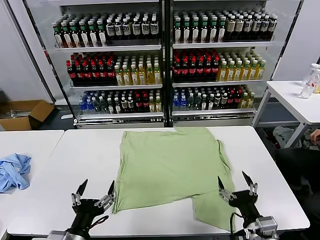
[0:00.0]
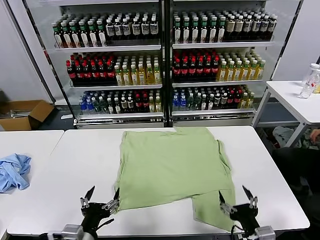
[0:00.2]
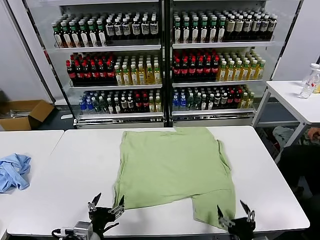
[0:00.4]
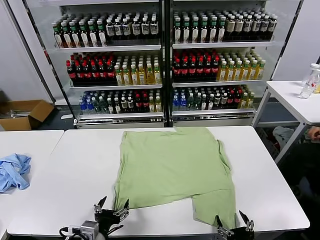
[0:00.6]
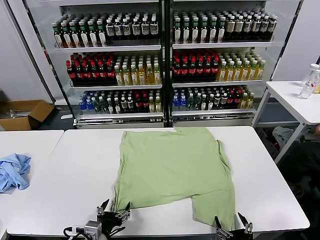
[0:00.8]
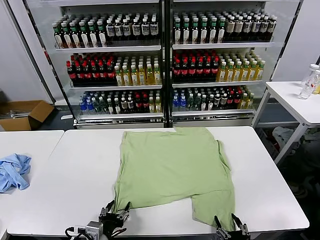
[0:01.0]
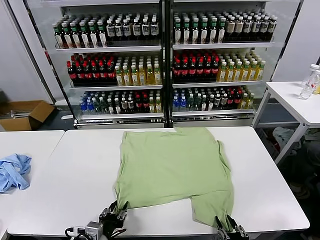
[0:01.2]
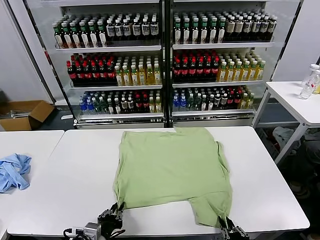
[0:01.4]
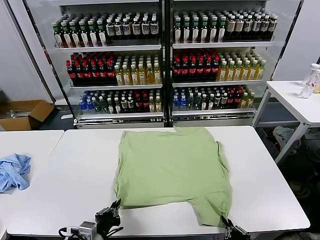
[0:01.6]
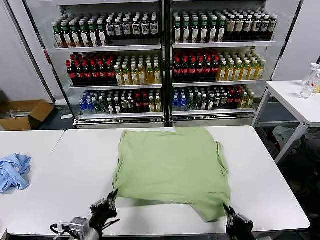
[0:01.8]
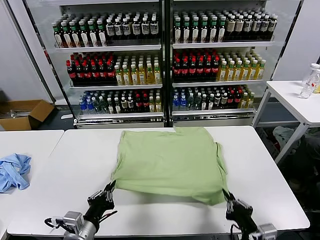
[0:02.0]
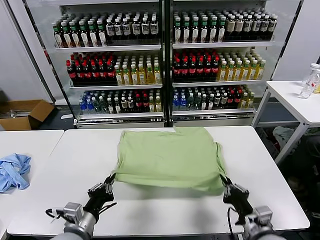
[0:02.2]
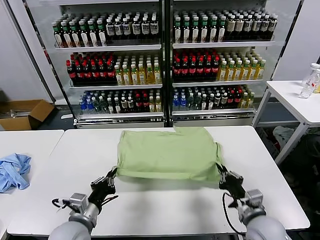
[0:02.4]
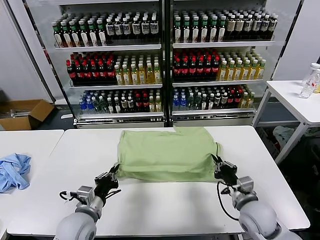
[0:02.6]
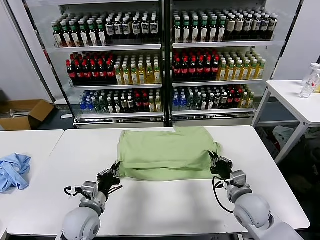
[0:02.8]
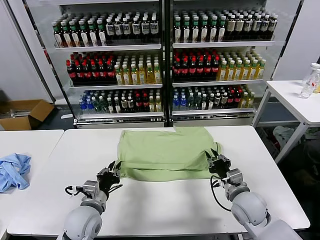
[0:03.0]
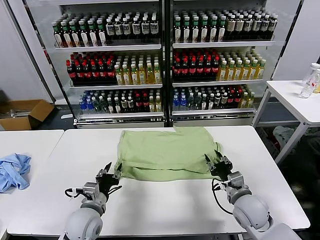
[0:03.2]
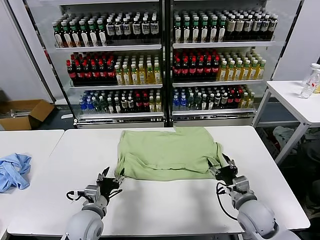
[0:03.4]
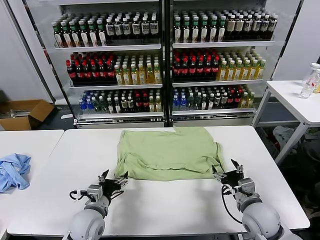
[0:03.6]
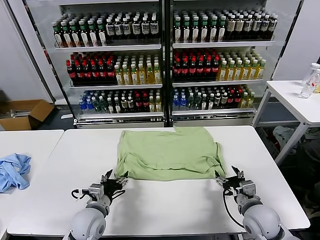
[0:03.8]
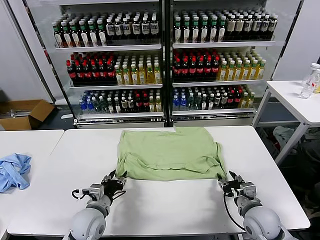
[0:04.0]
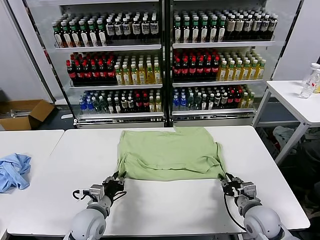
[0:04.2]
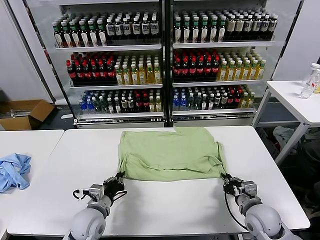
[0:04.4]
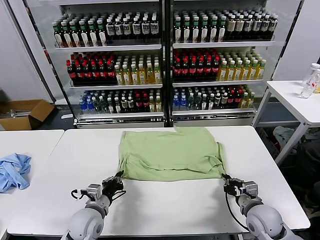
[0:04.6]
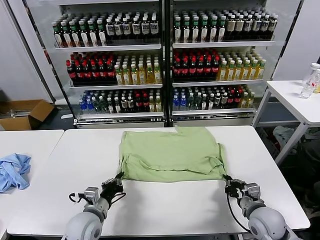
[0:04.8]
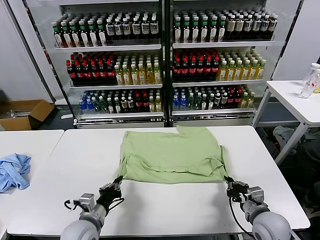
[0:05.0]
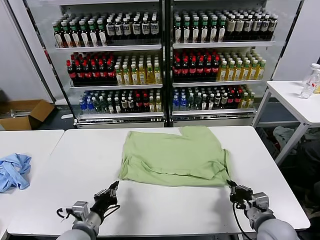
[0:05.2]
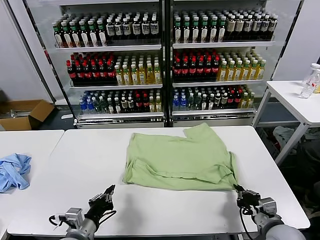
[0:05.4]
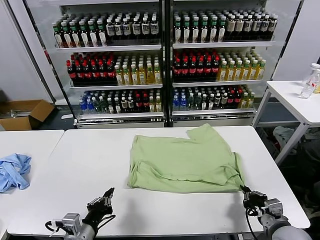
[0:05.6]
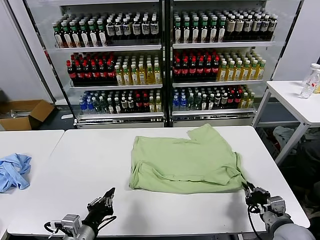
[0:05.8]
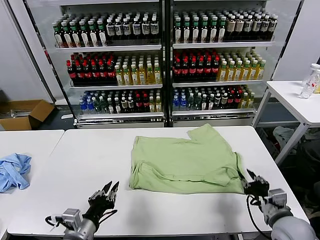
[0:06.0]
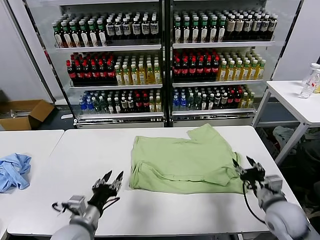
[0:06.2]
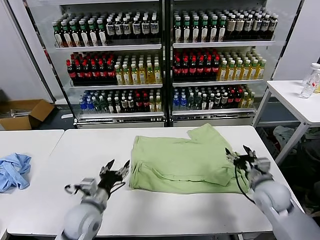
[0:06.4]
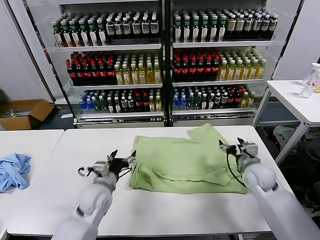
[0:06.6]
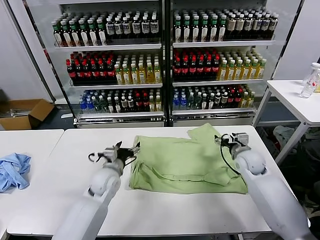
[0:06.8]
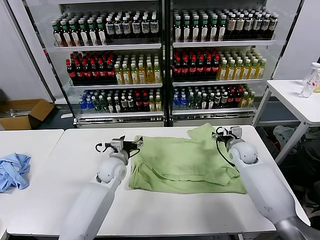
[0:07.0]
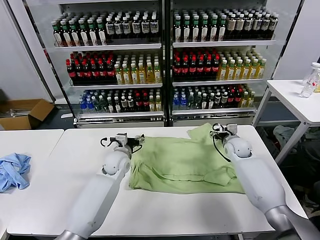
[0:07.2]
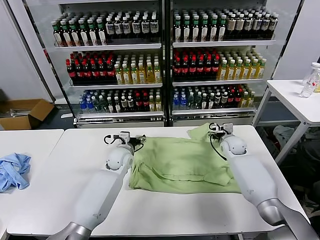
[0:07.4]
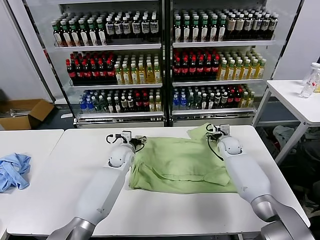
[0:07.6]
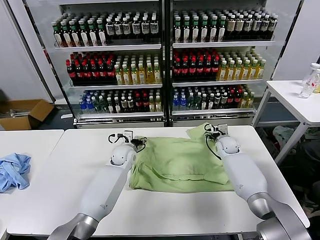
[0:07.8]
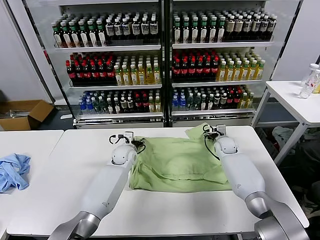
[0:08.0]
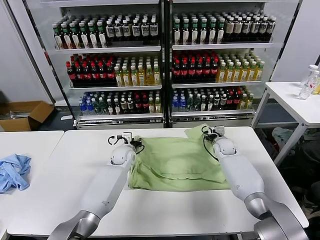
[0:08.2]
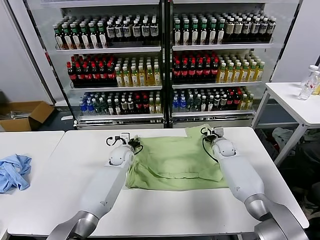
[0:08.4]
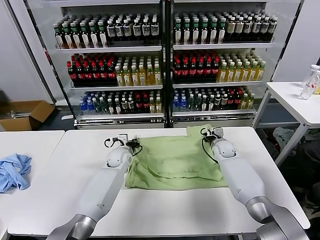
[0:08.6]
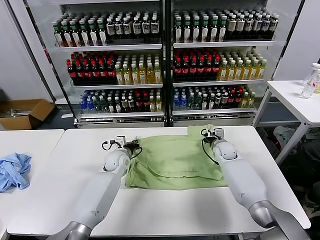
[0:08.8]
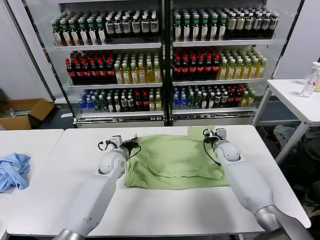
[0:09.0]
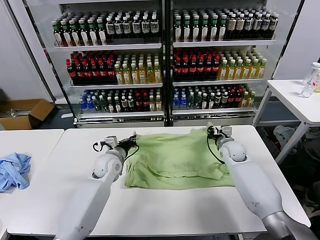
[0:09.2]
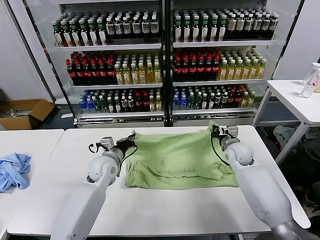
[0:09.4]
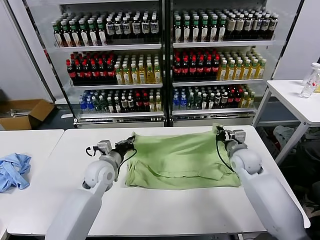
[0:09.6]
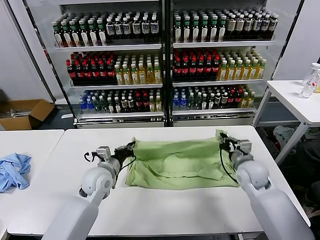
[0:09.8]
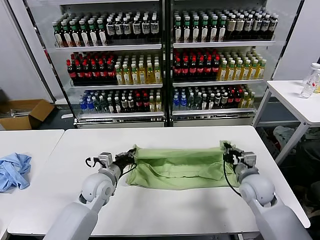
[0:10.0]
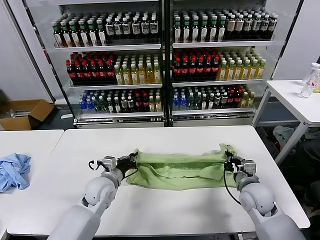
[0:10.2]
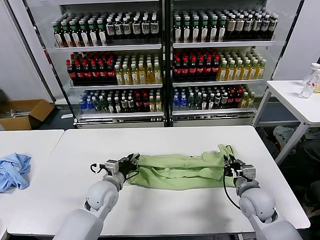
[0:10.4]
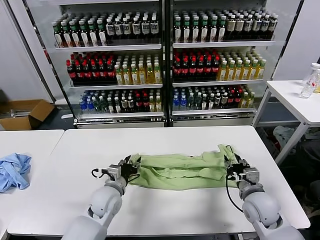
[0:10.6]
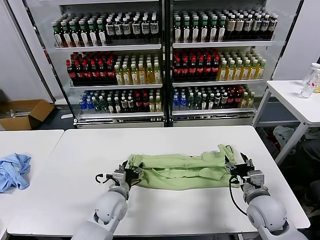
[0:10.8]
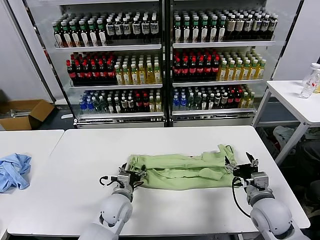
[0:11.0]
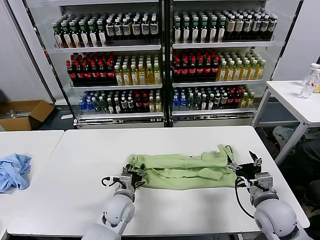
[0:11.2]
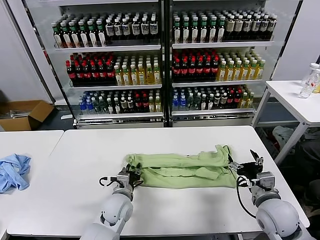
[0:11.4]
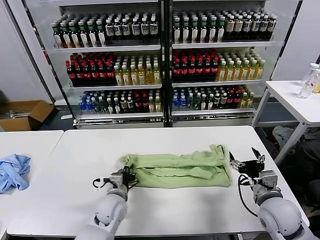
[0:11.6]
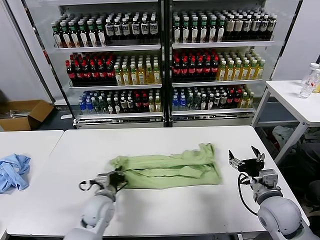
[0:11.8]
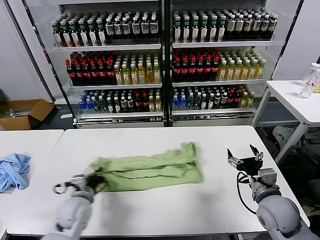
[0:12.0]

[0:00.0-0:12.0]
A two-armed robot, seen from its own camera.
Task of the whole recording: fold and organize the clothes.
Step, 0:00.0 to 0:01.6: use both grippers simultaneously to clamp the lower edge of the clothing fabric.
Step, 0:01.8 to 0:03.2: use both grippers to drag the lower edge of the fabric forward and fold it over the upper edge.
Step, 0:03.4 to 0:05.8: Drag the clothes downward with both gripper.
Step, 0:06.0 to 0:08.8: use both grippers simultaneously to clamp the upper edge of the clothing fabric.
Step, 0:09.0 to 0:10.4: use both grippers to drag the upper edge of the fabric backward and fold it over the lower edge.
Step, 0:10.6 to 0:11.8: use the left gripper to clamp the left edge of the fabric.
0:01.6 to 0:03.0: The right gripper moves forward, some 20 cm; the left gripper heads forward, covering roughly 10 cm.
0:03.0 to 0:04.4: The left gripper opens, then closes once more, while the right gripper changes place by approximately 5 cm, and opens, then closes once more.
0:04.4 to 0:06.0: The right gripper moves backward and upward, about 10 cm; the left gripper moves backward and upward, about 15 cm.
0:06.0 to 0:07.6: Both grippers move forward, some 35 cm. The right gripper opens; the left gripper opens up.
0:07.6 to 0:09.0: The right gripper closes up, while the left gripper closes its fingers.
0:09.0 to 0:10.4: The left gripper goes approximately 15 cm backward. The right gripper shifts roughly 20 cm backward.
0:10.4 to 0:12.0: The right gripper travels backward and upward by roughly 5 cm, and opens; the left gripper is displaced backward by about 5 cm, and opens and closes again.

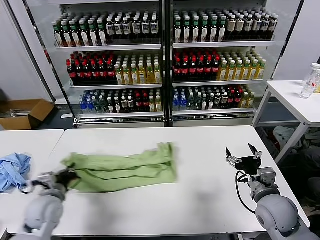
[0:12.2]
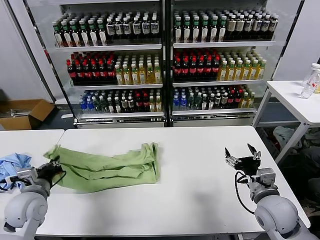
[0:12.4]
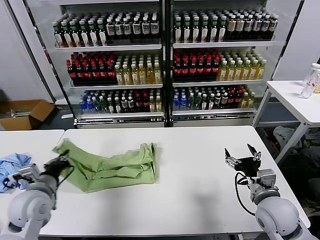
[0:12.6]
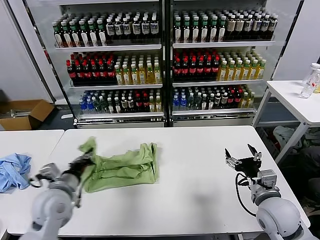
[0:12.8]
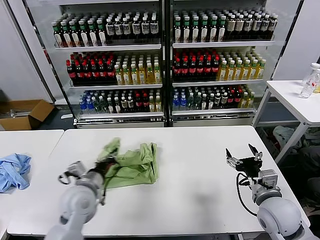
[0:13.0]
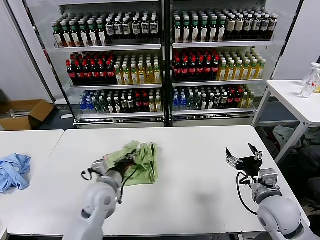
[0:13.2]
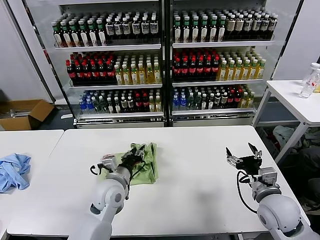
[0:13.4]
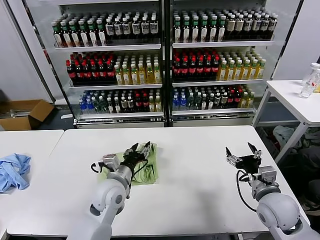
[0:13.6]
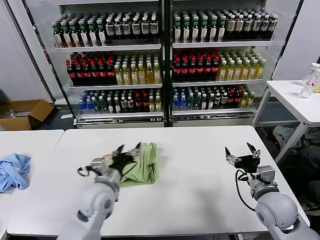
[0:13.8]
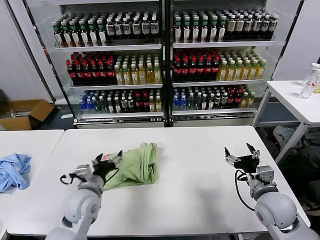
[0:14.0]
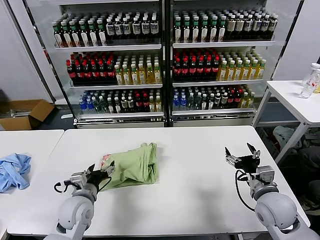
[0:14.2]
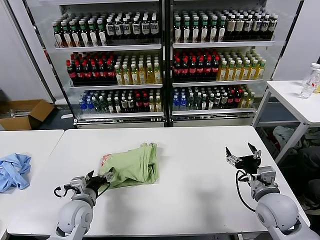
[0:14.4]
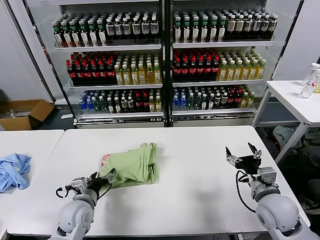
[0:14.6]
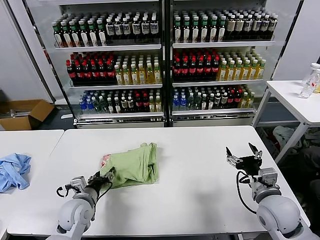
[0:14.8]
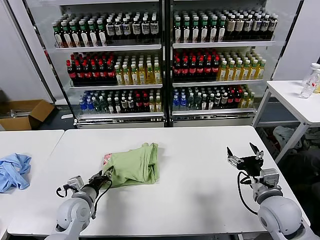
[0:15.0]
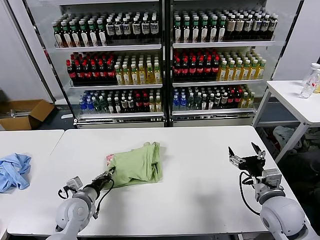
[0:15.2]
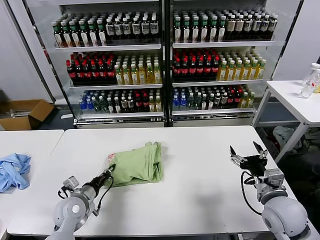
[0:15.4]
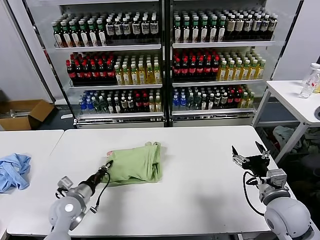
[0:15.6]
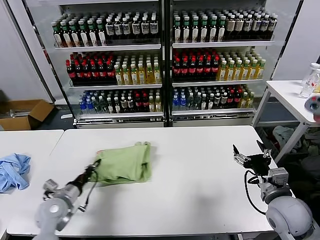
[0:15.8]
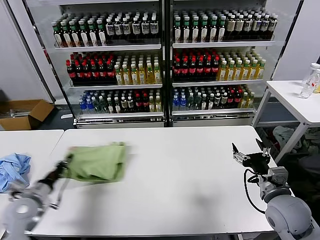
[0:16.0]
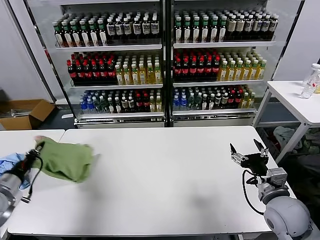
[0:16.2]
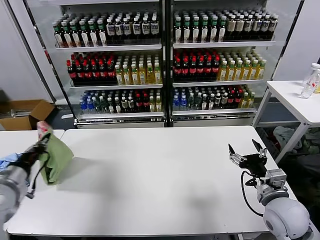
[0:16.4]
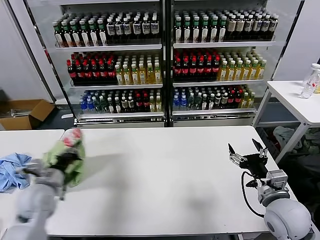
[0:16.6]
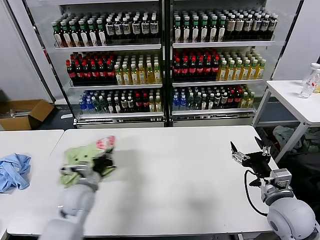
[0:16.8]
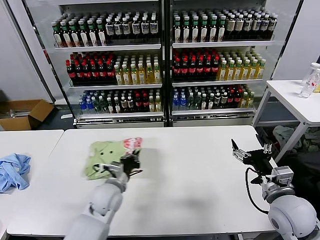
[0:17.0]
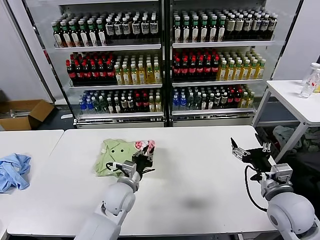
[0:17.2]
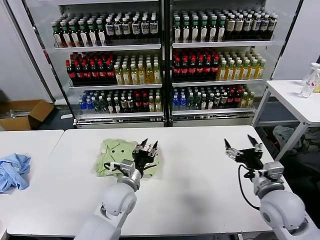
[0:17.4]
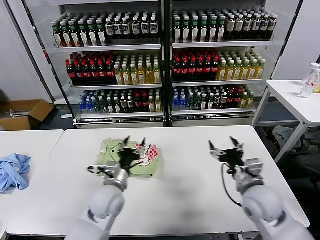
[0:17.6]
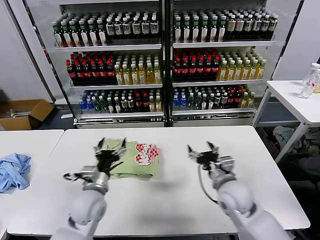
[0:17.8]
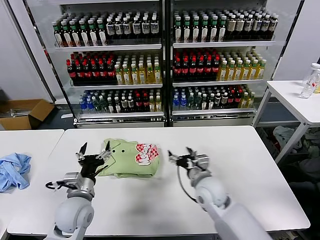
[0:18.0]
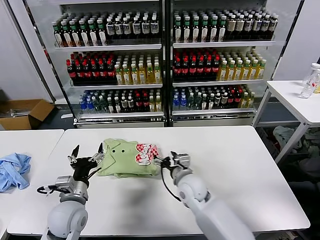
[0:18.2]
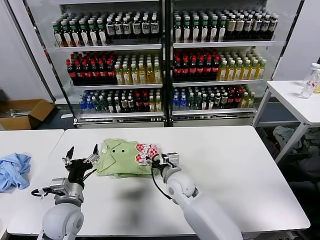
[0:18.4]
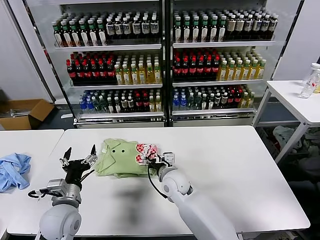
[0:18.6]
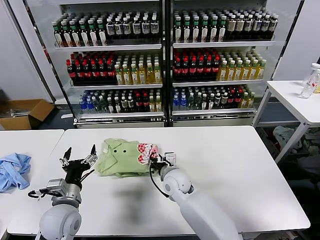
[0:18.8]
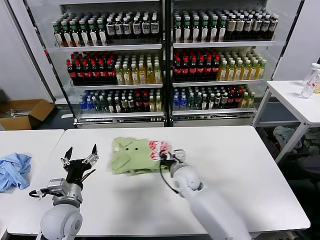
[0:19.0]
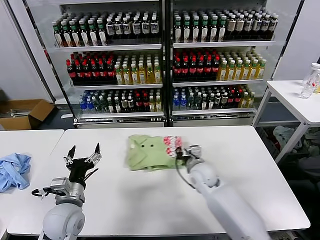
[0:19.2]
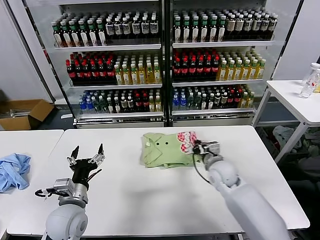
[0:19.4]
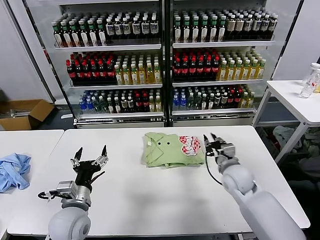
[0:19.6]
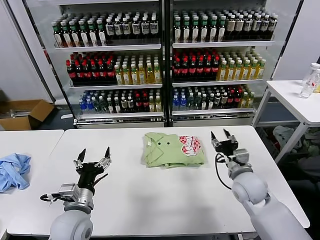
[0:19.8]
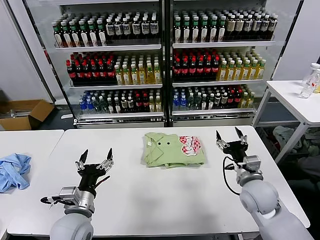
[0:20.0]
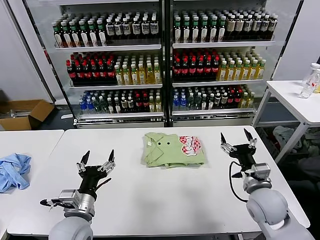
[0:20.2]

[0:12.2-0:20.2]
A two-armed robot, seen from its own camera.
Task of the whole recording: fold and organize the clothes.
Step, 0:12.2 to 0:13.6: use the left gripper to drag the left edge of the fabric to the left and folds it over the right edge.
Step, 0:13.8 to 0:17.2: Flip the folded clothes over with left gripper.
Step, 0:17.4 to 0:19.4: Drag the clothes to the center of the table.
0:12.2 to 0:13.8: The left gripper moves to the right, approximately 15 cm, and opens up.
0:13.8 to 0:15.4: The left gripper travels to the left and downward by roughly 15 cm, and closes up.
0:15.4 to 0:17.0: The left gripper goes to the left and returns, about 15 cm each way.
0:17.0 to 0:18.6: The left gripper moves backward and to the left, approximately 10 cm, and opens. Meanwhile the right gripper travels to the left and forward by approximately 30 cm.
0:18.6 to 0:20.2: The left gripper moves roughly 5 cm, while the right gripper goes approximately 25 cm to the right, and closes, then reopens.

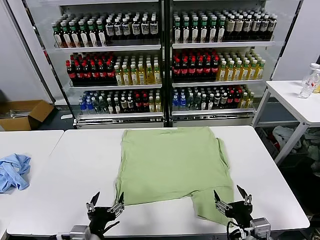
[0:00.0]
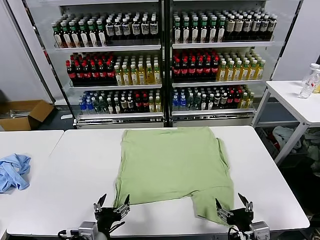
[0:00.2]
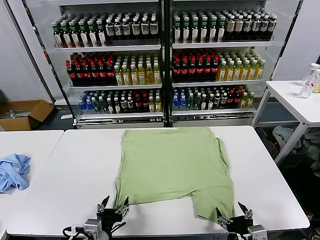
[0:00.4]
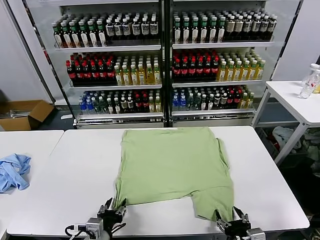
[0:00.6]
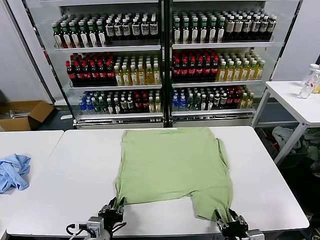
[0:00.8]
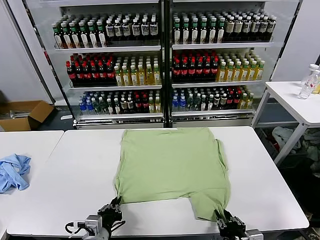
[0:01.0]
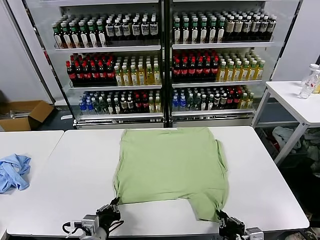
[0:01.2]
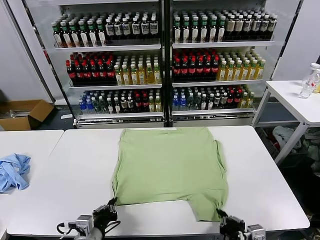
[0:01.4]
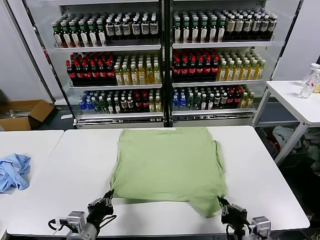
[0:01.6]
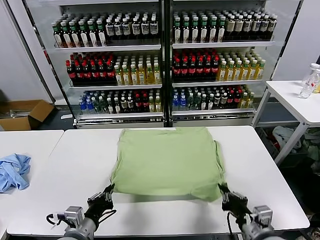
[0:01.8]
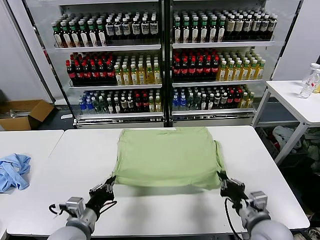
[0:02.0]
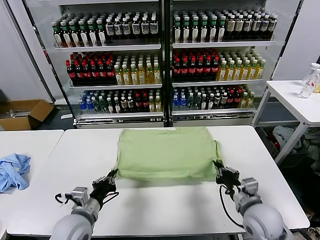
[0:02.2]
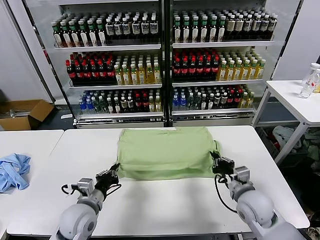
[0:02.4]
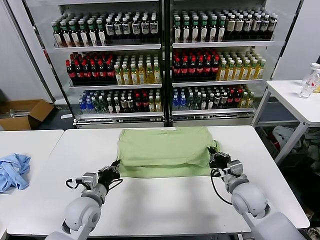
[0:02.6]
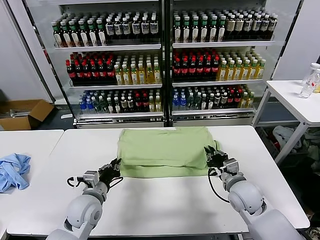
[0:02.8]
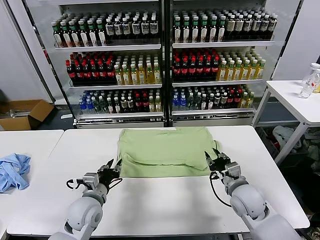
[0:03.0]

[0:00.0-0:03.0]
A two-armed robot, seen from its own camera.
Task of the whole recording: fold and organize the clothes.
Step, 0:00.0 to 0:01.2: use both grippers simultaneously to clamp the lower edge of the clothing fabric.
Step, 0:01.4 to 0:02.8: use both grippers to drag the lower edge of the fabric forward and fold it over the upper edge.
0:01.6 to 0:03.0: Both grippers travel together forward, approximately 15 cm. The right gripper opens up. The left gripper opens up.
